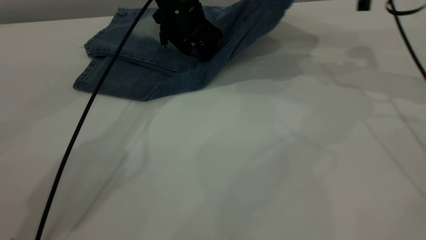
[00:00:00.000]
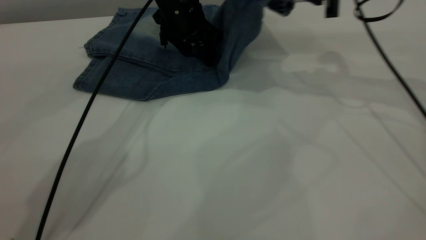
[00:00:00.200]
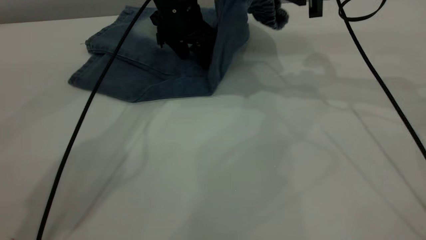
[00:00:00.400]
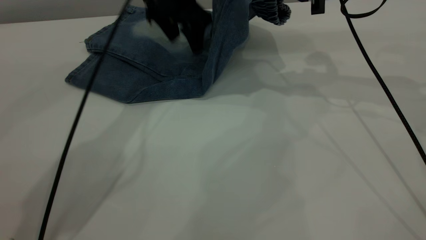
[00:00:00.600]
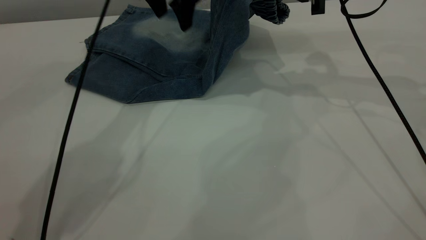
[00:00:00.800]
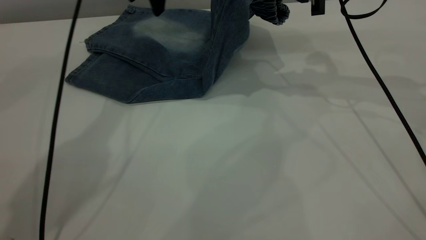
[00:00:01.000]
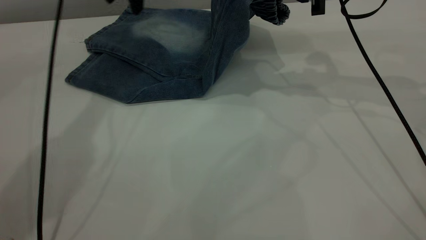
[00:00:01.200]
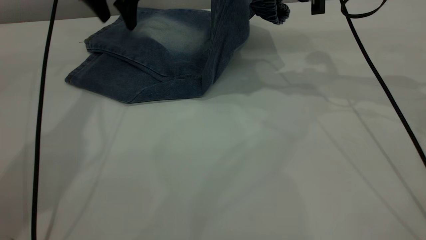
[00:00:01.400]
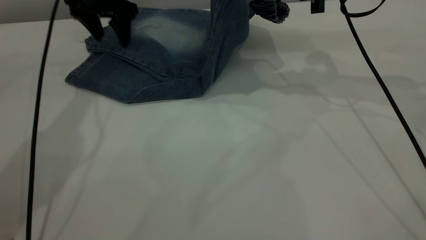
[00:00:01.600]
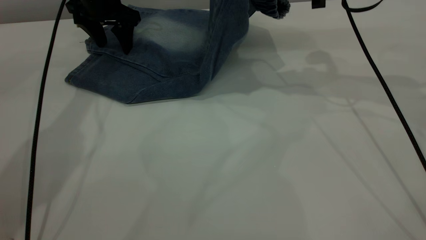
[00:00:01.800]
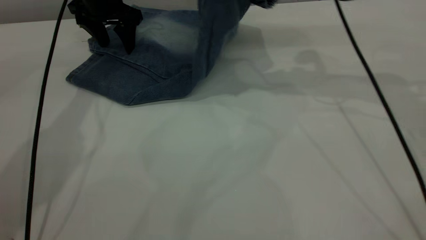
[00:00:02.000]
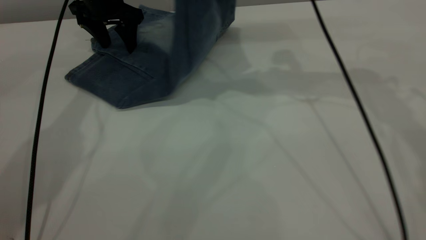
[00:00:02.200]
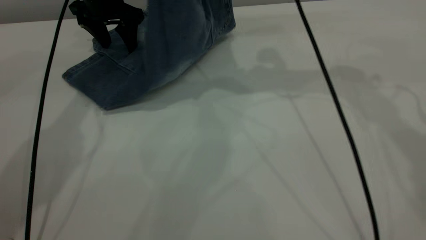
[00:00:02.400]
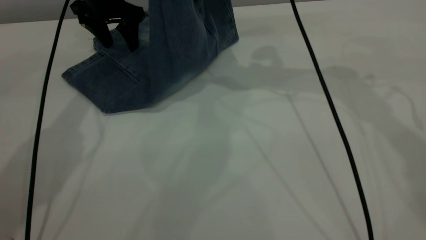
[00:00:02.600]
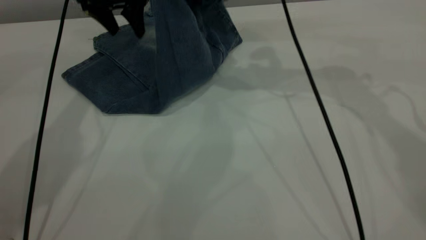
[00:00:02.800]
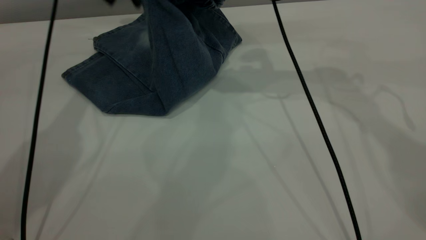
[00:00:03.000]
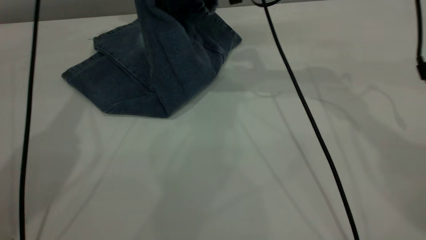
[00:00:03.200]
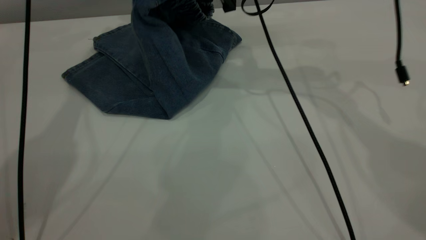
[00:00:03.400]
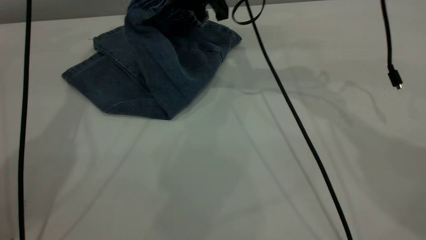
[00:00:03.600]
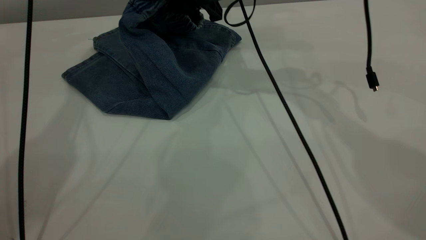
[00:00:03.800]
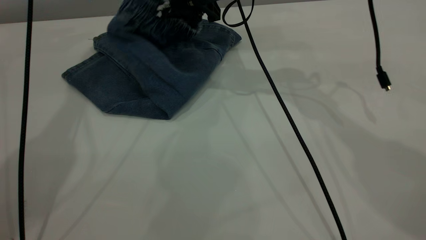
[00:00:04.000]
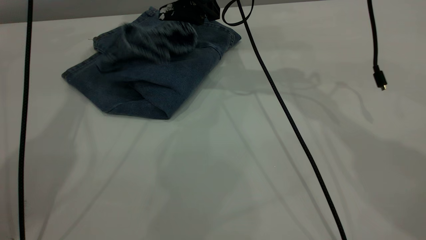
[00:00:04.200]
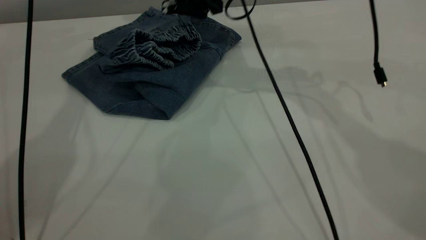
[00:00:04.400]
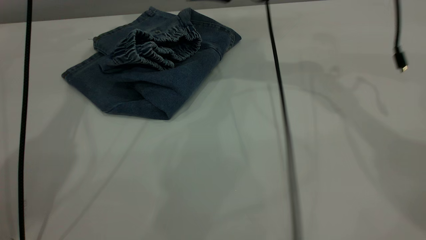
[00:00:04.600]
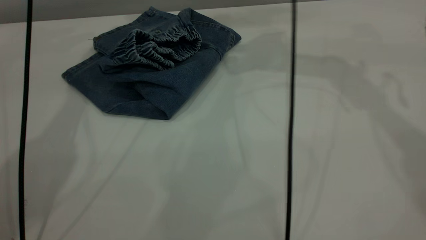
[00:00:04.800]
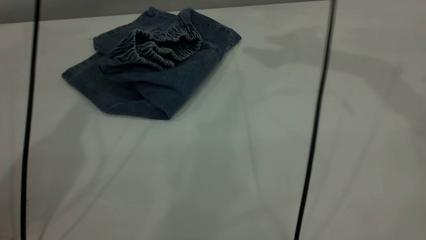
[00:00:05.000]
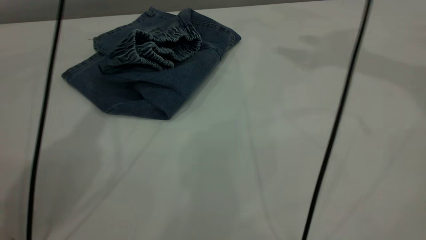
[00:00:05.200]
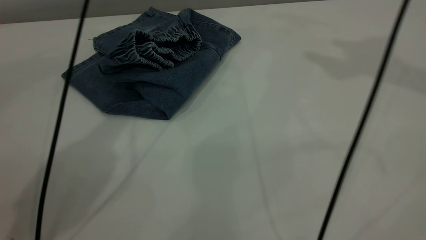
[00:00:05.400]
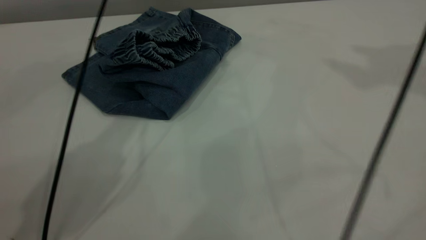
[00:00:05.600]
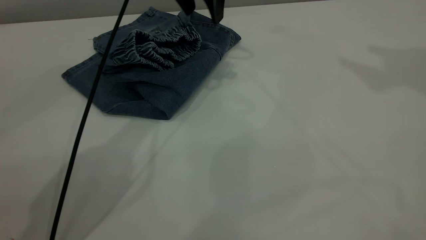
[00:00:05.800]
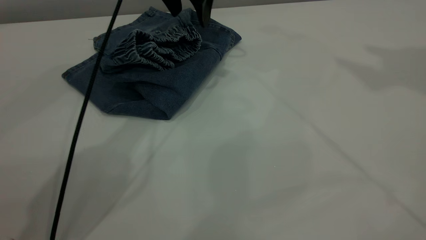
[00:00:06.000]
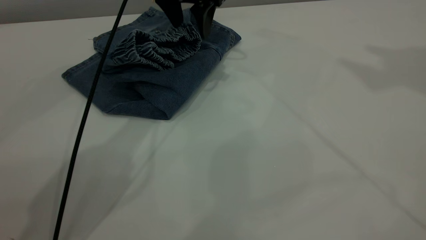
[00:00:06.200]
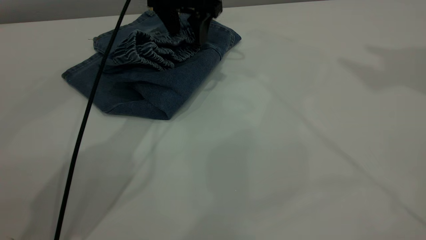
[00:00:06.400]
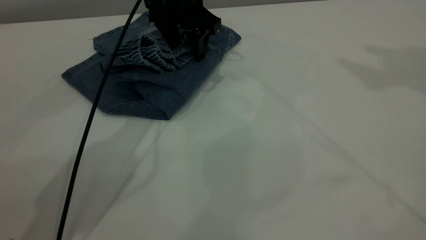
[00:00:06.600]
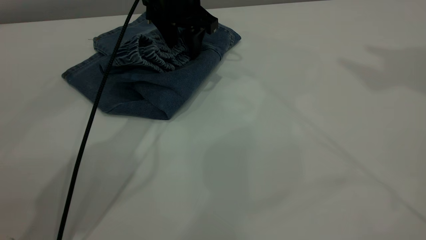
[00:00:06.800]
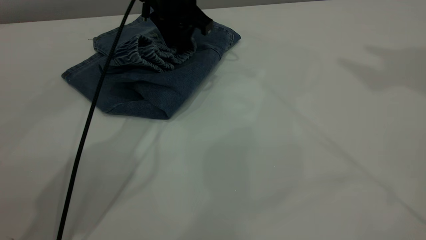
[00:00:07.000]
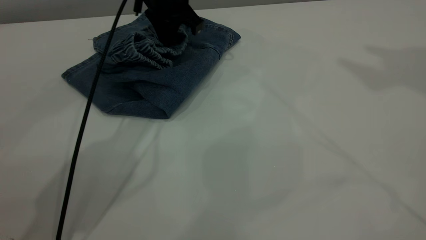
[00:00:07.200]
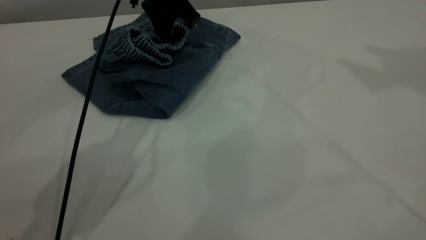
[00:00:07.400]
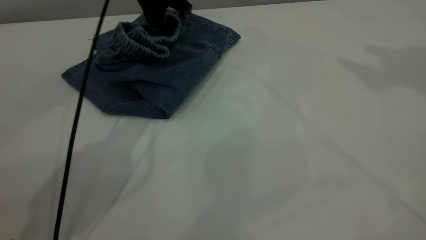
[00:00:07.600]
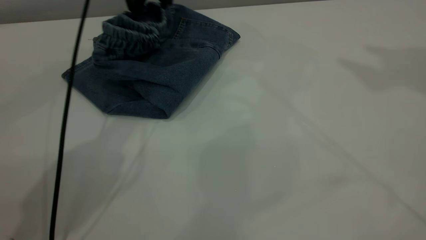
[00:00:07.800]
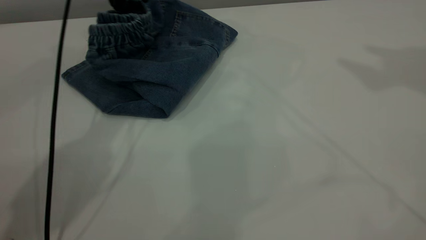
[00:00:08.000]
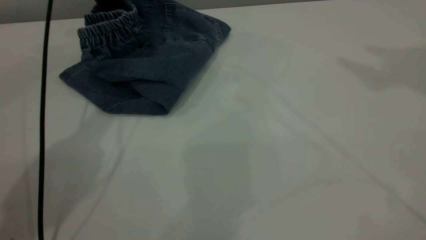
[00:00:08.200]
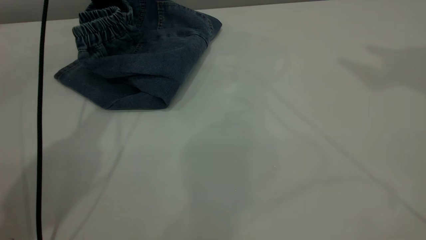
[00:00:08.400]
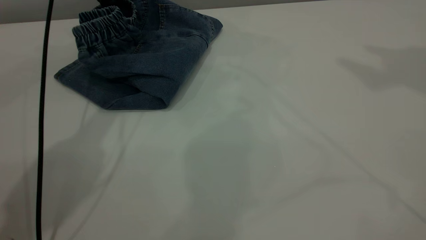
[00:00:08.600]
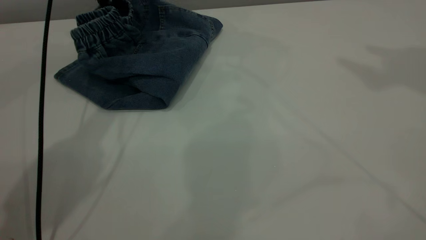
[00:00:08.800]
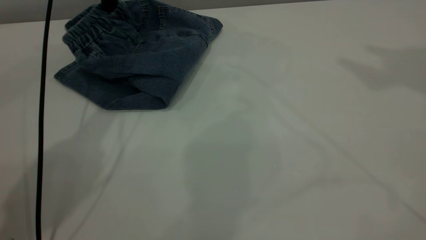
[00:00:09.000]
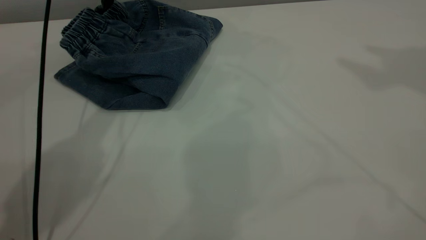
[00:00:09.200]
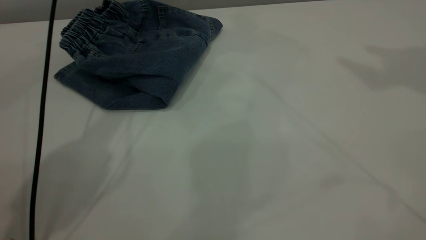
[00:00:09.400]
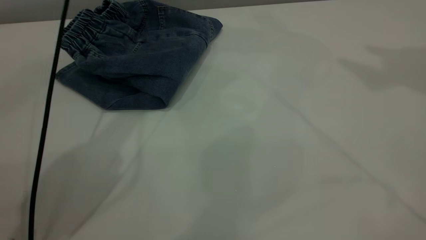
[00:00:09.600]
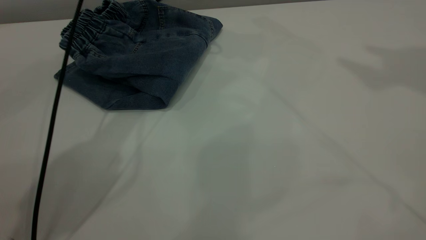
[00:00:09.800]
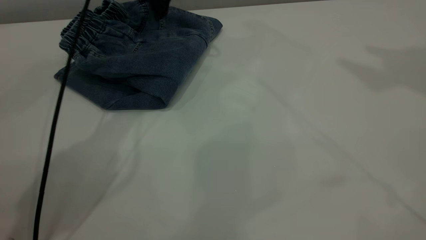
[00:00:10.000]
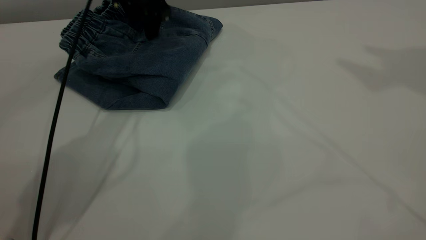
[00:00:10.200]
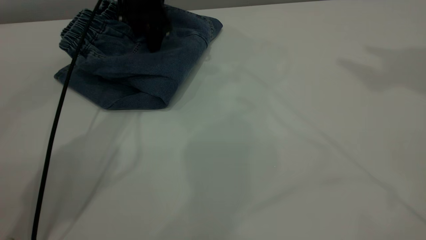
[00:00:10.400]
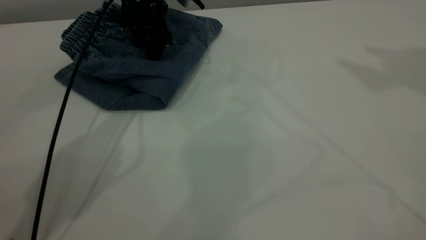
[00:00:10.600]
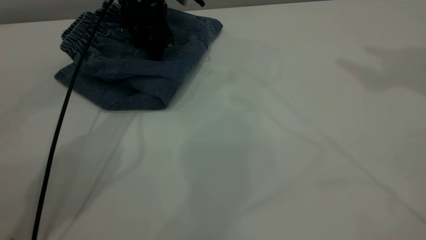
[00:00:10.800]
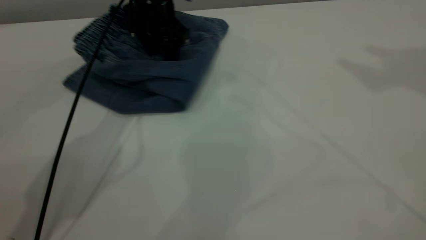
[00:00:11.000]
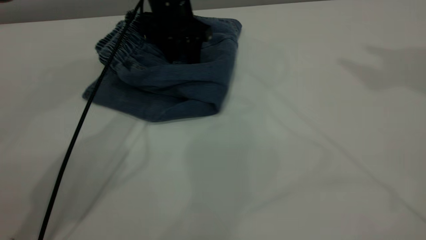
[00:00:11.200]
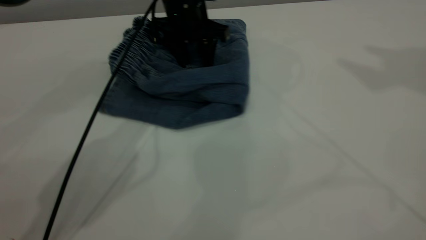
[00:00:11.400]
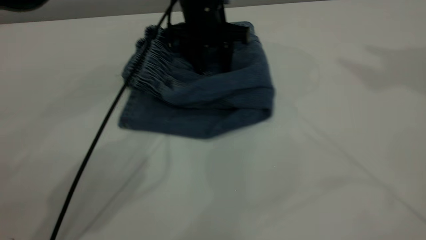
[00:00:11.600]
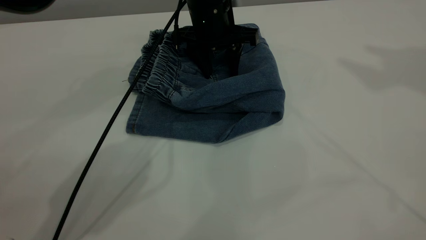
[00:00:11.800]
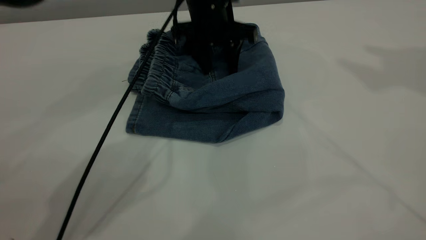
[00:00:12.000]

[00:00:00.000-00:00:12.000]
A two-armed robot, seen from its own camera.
Step, 00:00:00.000 to 00:00:04.400: Fold your pants from right to left.
00:00:00.000 to 00:00:01.600: The left gripper travels to the left by some 15 cm.
00:00:01.600 to 00:00:03.000: The right gripper moves to the left, about 10 cm; the left gripper moves upward, some 10 cm.
00:00:03.000 to 00:00:04.400: The right gripper changes place by about 5 cm, and opens. Meanwhile the left gripper heads upward, covering approximately 10 cm.
00:00:04.400 to 00:00:06.000: The left gripper travels downward, to the right and backward by about 20 cm. Meanwhile the right gripper goes approximately 40 cm upward and to the right.
00:00:06.000 to 00:00:07.600: The left gripper closes its fingers.
00:00:07.600 to 00:00:09.000: The left gripper travels to the left by about 10 cm, and opens up.
00:00:09.000 to 00:00:10.400: The left gripper shifts some 5 cm downward.
00:00:10.400 to 00:00:12.000: The left gripper moves to the right and backward, about 10 cm.

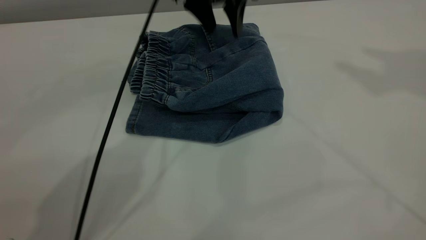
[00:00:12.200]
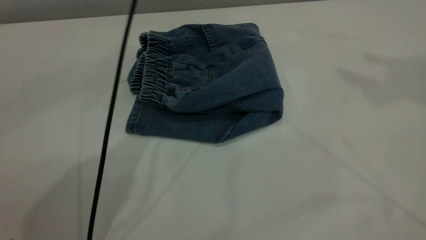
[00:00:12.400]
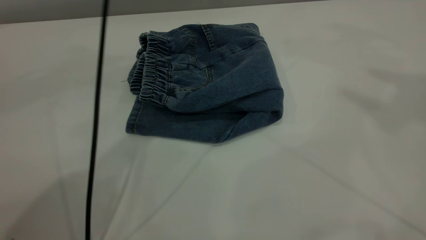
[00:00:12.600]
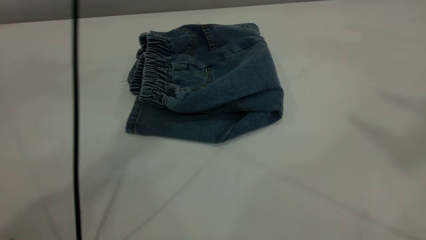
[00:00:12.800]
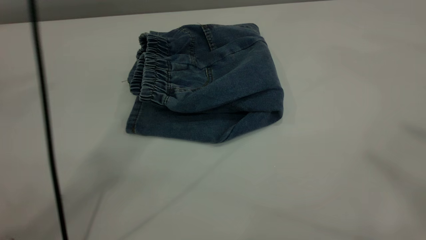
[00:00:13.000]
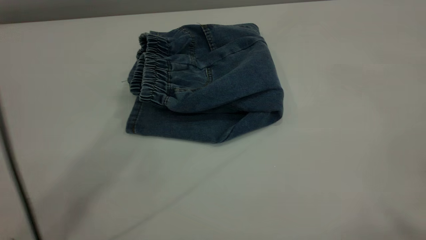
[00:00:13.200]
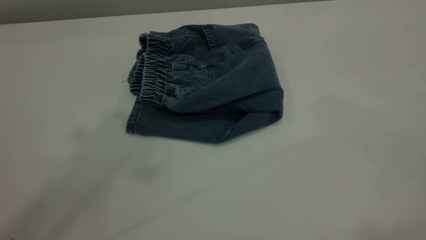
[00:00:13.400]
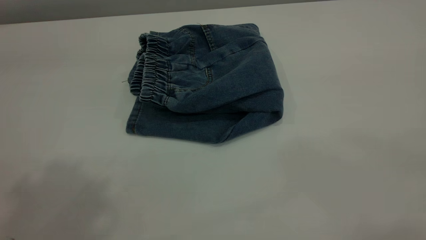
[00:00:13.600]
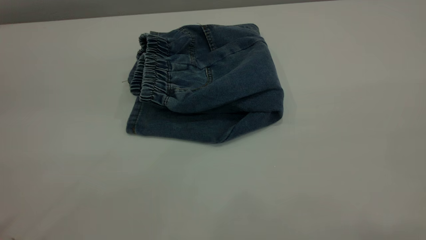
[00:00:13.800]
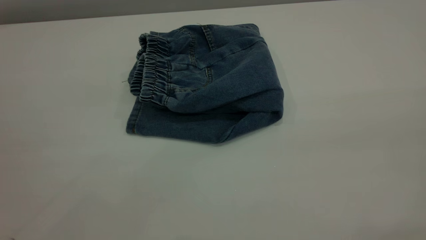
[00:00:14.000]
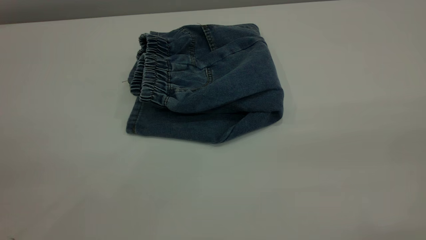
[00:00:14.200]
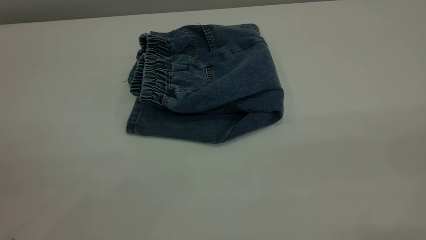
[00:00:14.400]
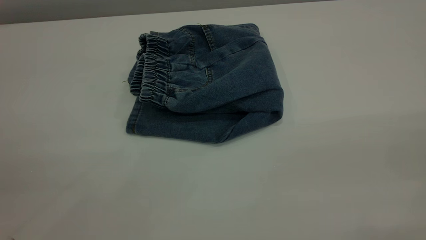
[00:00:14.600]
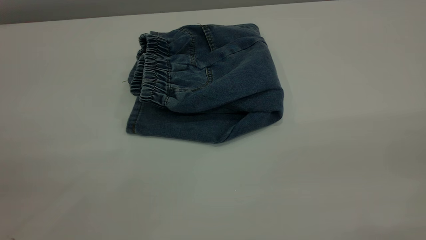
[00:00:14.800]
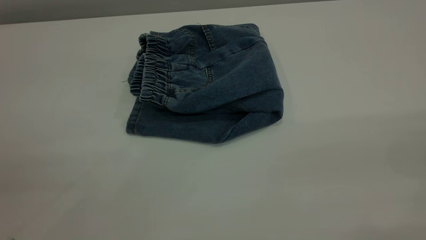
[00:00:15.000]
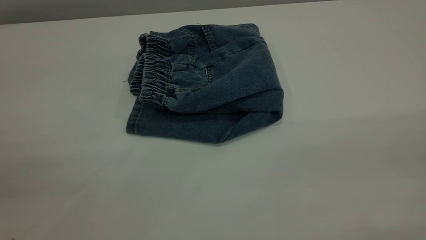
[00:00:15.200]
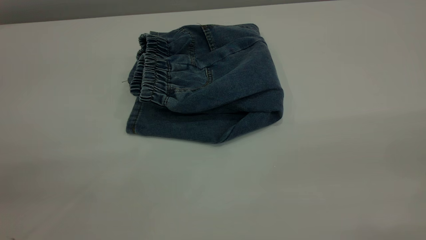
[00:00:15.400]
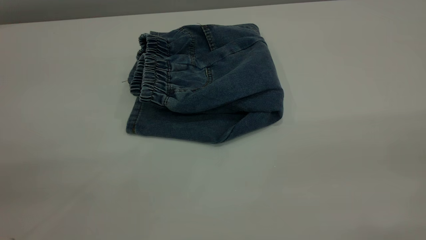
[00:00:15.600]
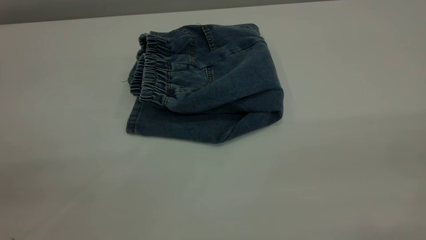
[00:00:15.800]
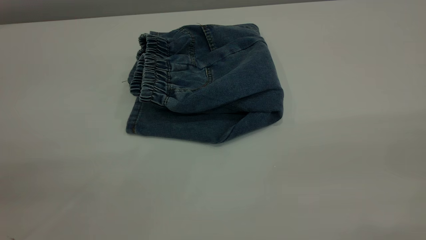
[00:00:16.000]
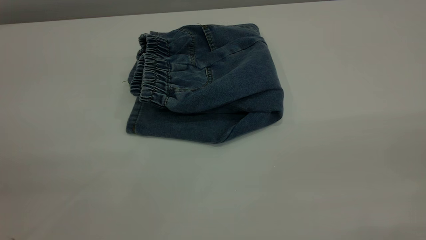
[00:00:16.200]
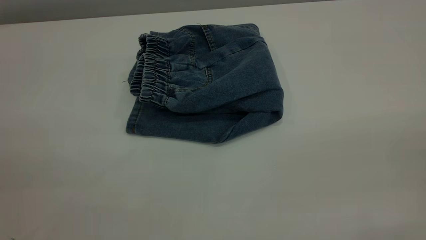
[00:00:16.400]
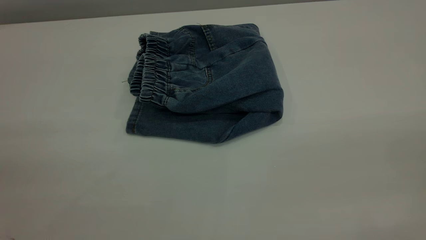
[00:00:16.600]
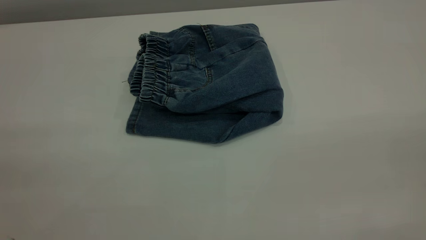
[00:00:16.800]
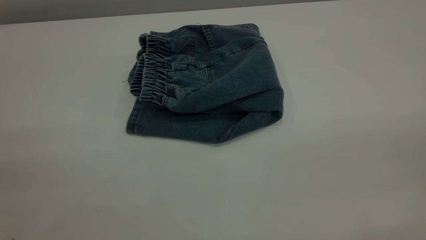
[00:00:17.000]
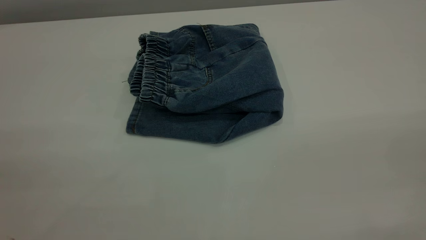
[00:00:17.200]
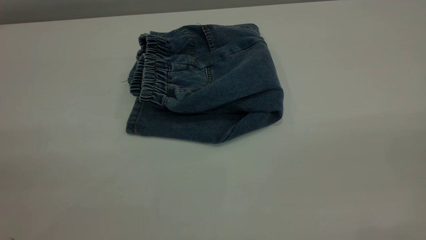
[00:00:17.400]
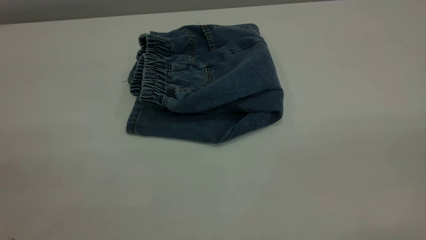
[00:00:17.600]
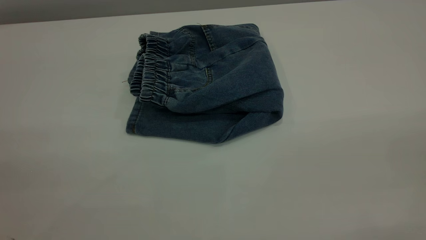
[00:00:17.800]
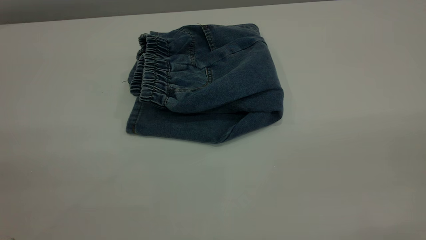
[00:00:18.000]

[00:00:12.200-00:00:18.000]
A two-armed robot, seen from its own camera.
00:00:12.200 to 00:00:13.600: The right gripper is displaced backward by approximately 35 cm; the left gripper travels backward, upward and to the left by some 50 cm.
00:00:16.600 to 00:00:18.000: Both grippers stay about where they are.
